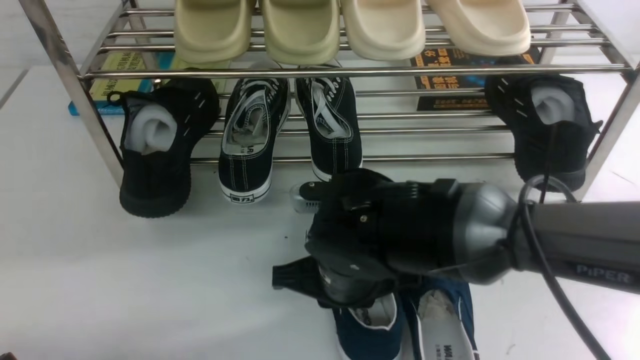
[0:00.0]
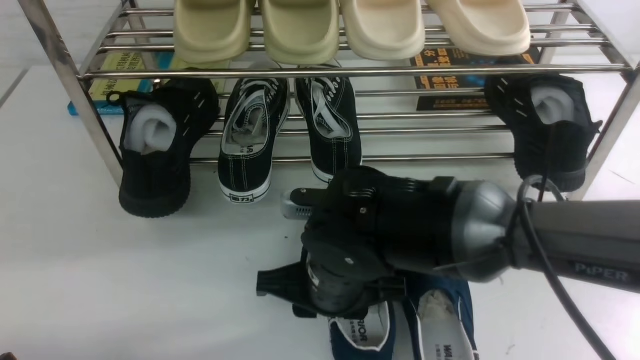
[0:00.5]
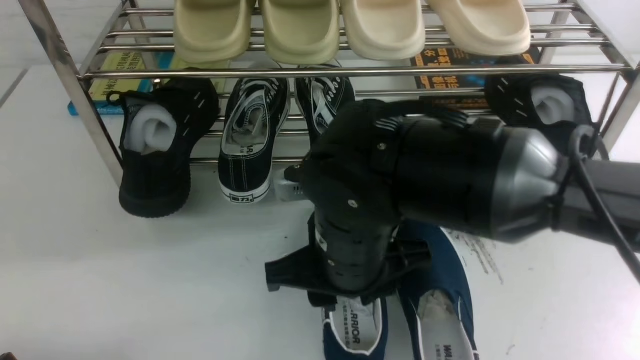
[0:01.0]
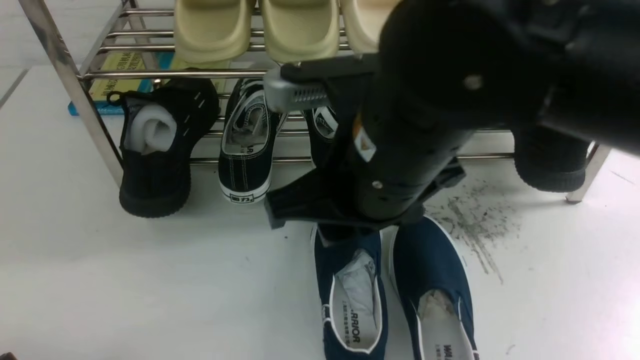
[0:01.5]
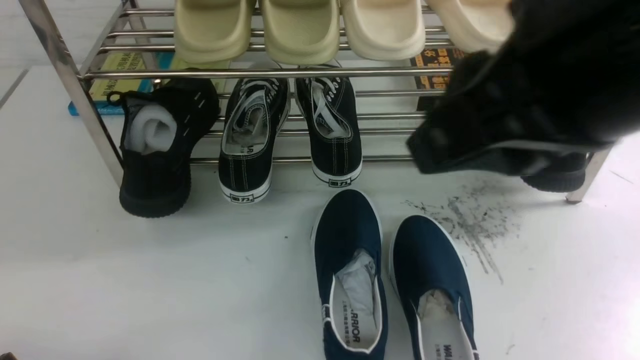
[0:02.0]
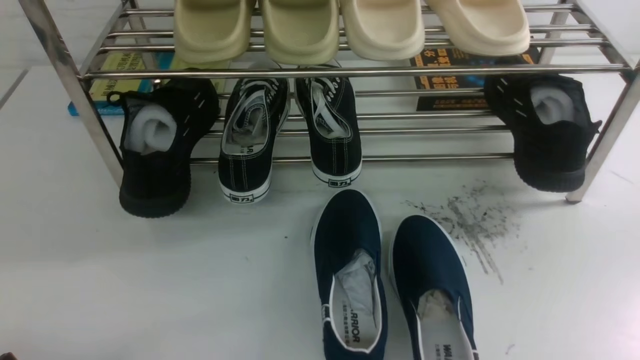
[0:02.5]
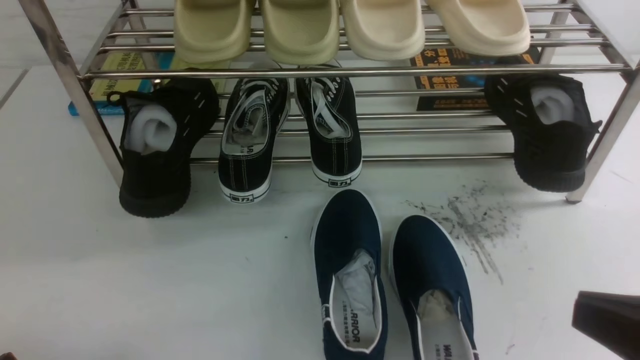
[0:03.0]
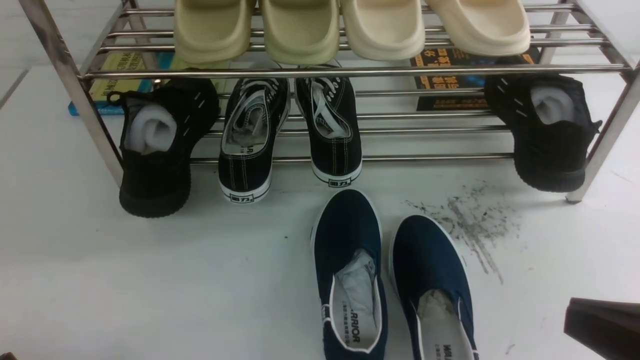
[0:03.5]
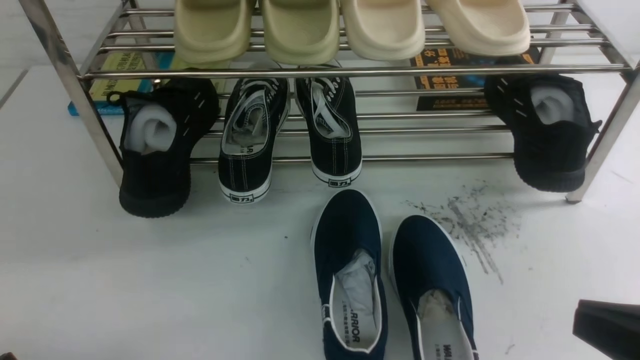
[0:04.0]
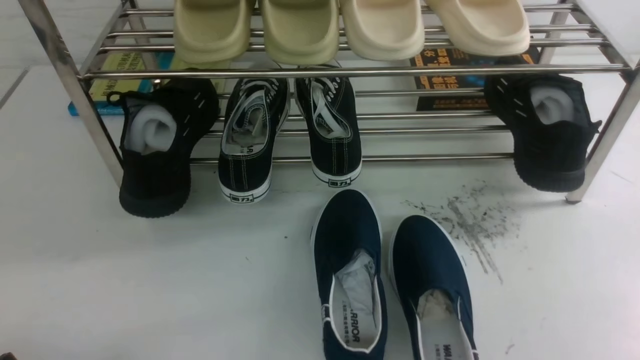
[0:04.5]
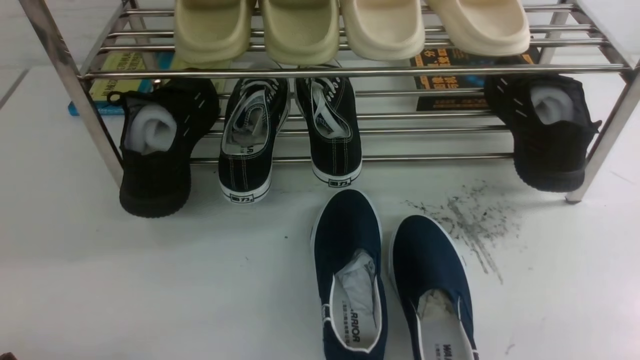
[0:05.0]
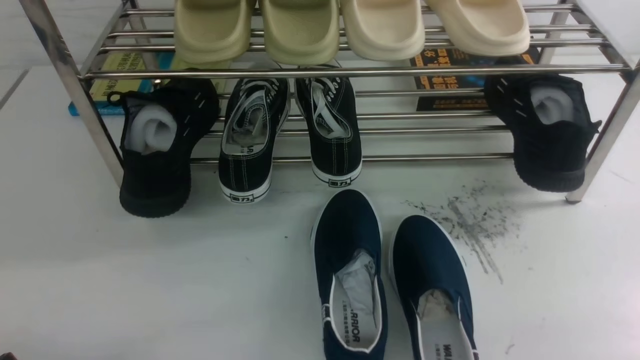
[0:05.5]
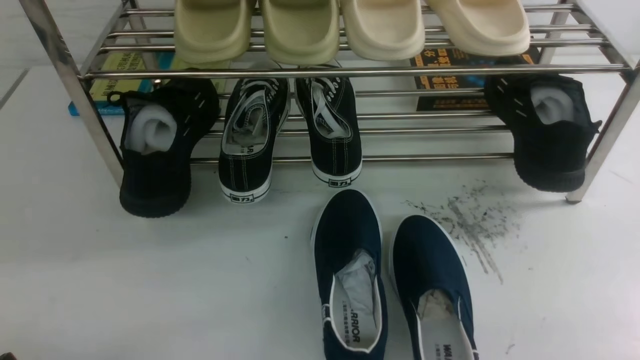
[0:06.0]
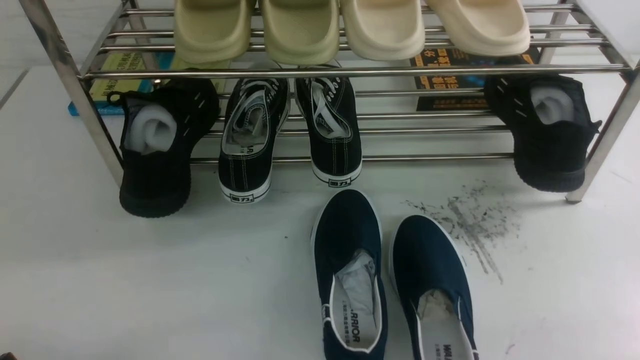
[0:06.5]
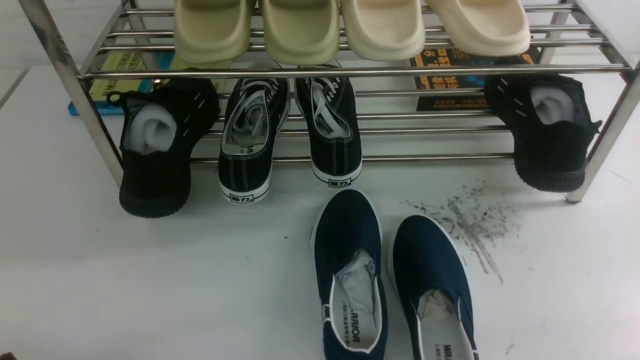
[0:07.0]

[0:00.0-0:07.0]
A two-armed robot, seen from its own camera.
0:00.0 to 0:02.0: The right gripper moves upward and to the right, about 30 cm.
0:02.0 to 0:03.5: The right gripper moves downward, to the right and backward, roughly 20 cm, and closes up.
0:03.5 to 0:05.0: The right gripper shifts about 15 cm downward and to the right.
